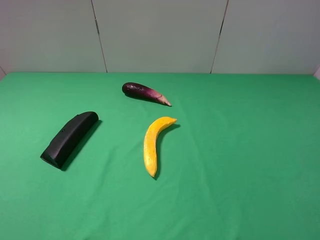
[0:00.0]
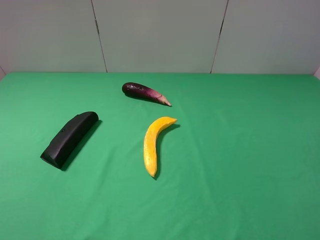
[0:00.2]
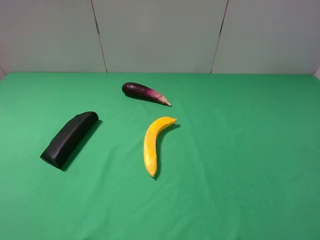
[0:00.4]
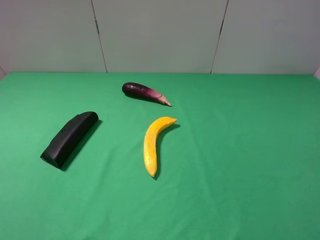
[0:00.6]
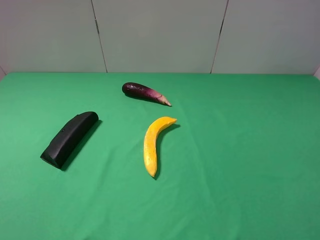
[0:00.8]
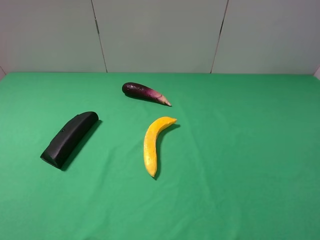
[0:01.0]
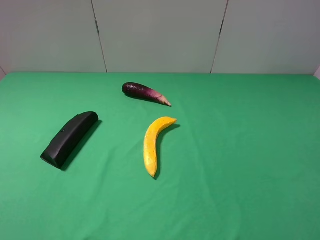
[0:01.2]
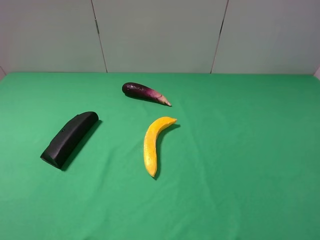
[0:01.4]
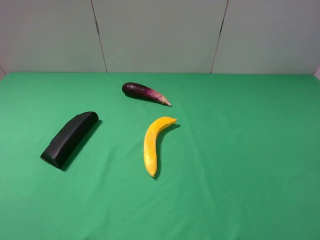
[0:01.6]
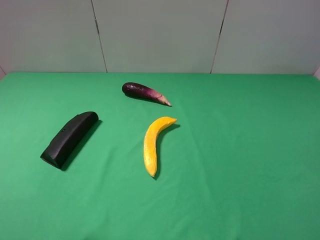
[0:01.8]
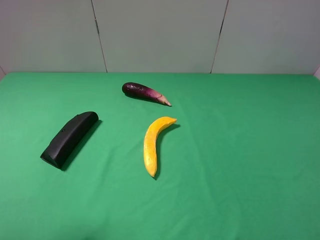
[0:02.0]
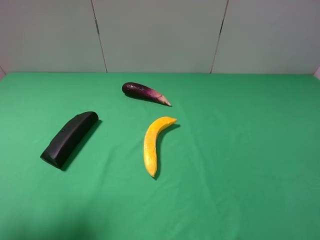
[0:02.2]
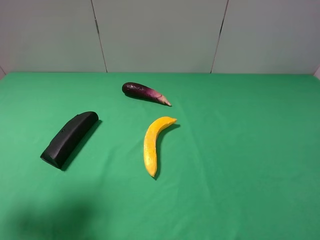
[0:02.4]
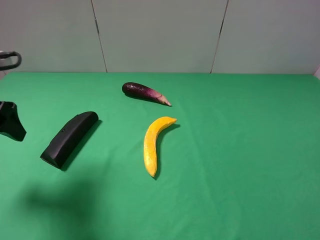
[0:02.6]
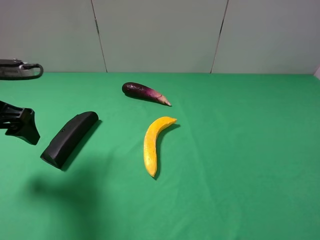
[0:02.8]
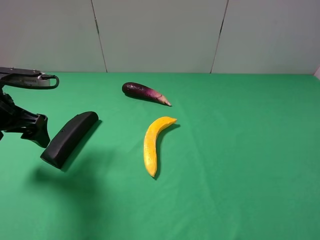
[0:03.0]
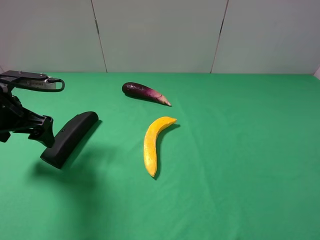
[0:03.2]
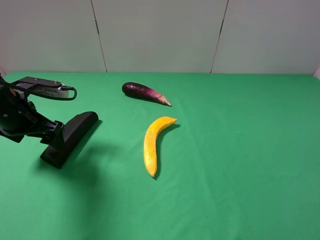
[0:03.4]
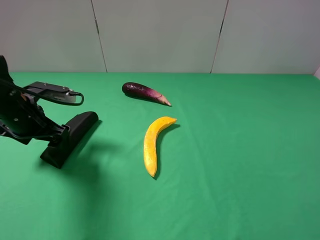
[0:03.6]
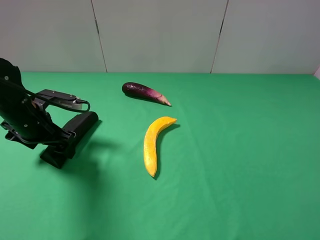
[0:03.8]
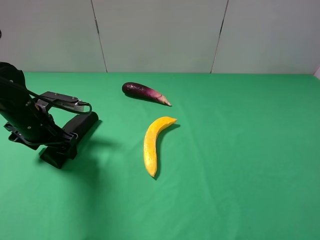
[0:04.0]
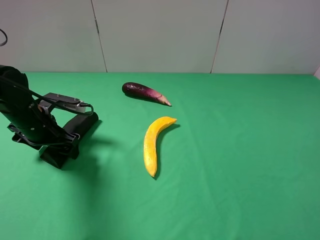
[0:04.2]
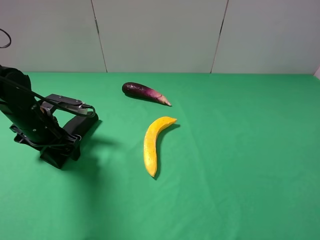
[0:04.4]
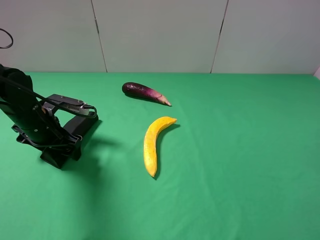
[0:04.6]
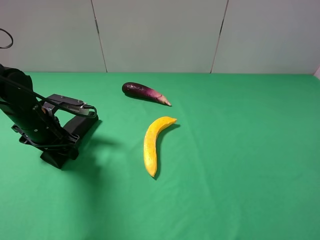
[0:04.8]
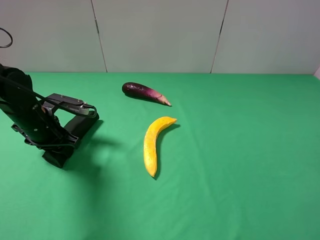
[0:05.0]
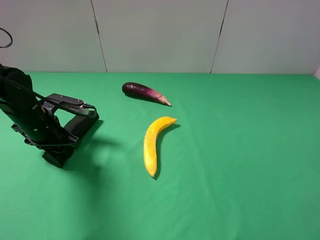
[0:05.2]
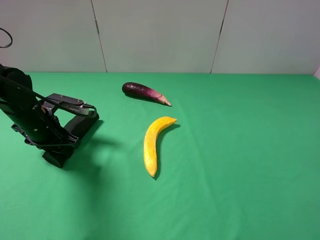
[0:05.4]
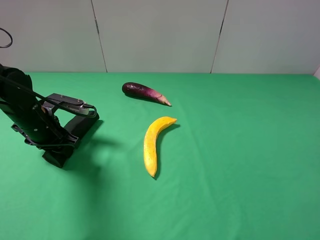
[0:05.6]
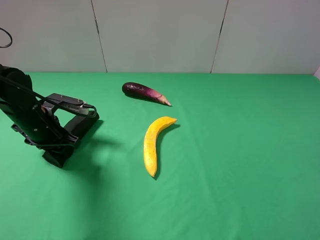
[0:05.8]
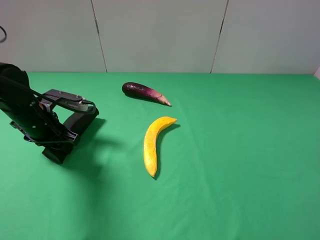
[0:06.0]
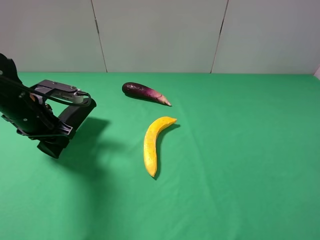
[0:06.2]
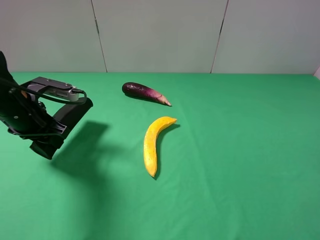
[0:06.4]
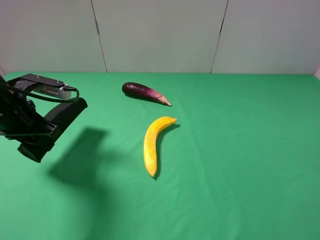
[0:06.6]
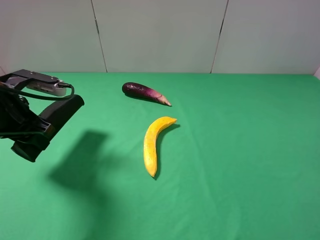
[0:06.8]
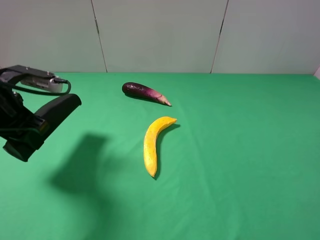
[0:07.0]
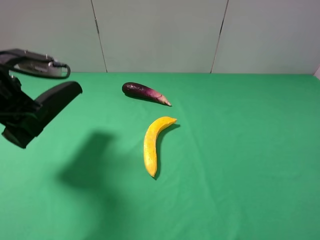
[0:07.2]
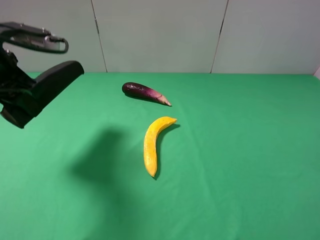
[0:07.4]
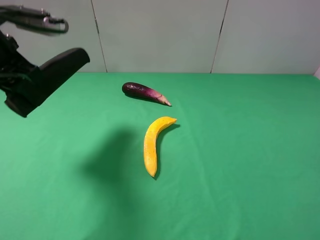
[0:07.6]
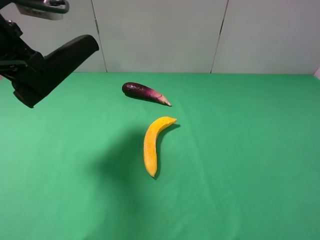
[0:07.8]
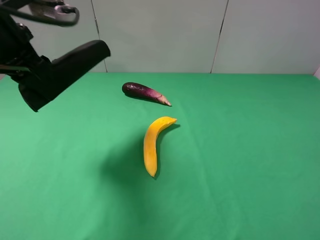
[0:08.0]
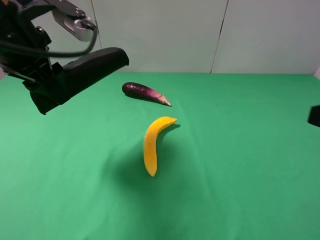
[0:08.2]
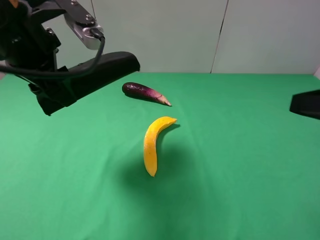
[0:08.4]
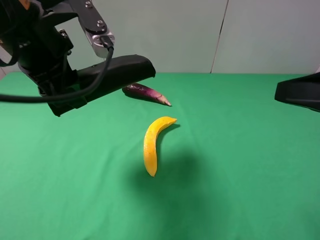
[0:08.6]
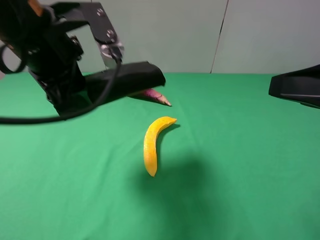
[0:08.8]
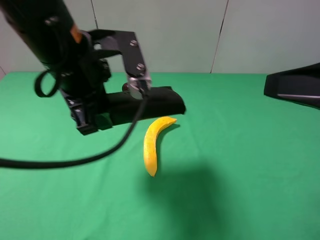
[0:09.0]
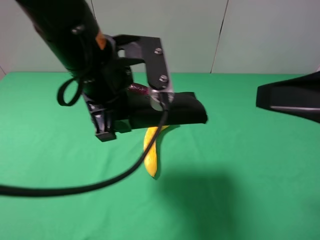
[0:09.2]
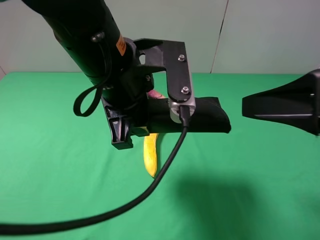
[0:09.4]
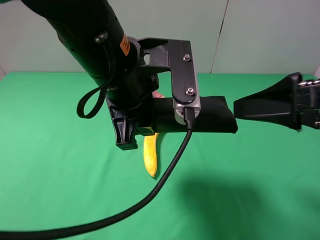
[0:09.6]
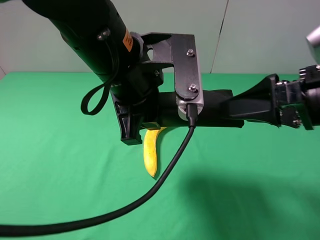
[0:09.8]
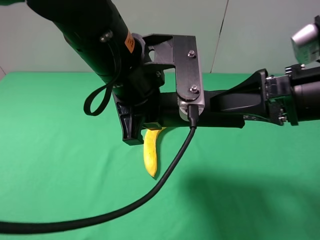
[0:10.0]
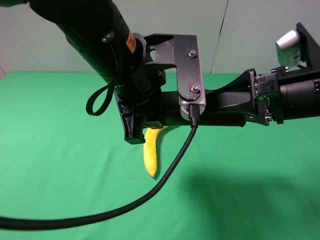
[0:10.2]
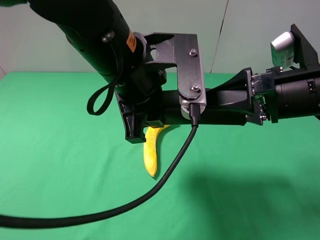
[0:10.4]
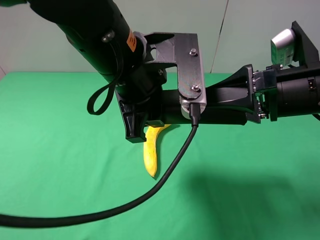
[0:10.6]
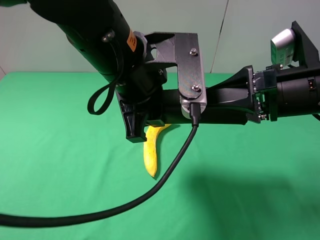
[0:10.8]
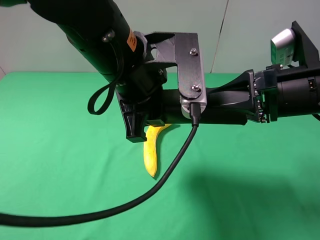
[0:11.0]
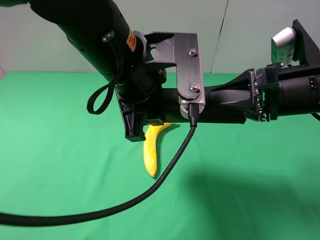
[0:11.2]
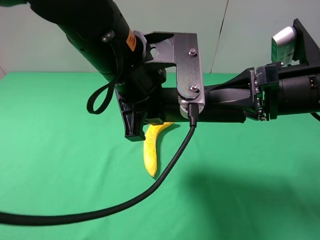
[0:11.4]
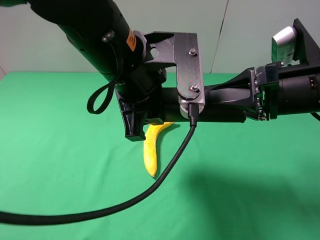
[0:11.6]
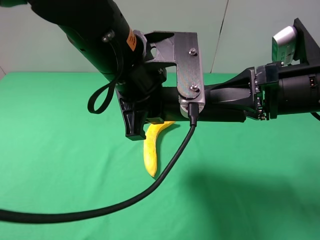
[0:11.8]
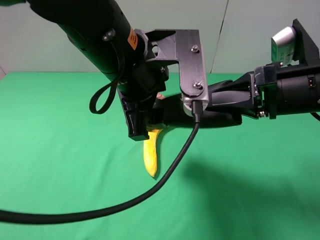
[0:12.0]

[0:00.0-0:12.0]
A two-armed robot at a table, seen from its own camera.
Task of the whole recording: use the left gripper to pick up the item and transfer it from the left gripper to the right gripper.
Step, 0:00.0 to 0:05.2: Use the left gripper to grab the eyeglass case on the left side of the table.
0:01.6 to 0:03.0: The left gripper shifts some 25 cm forward and downward.
0:03.0 to 0:04.4: The left gripper heads downward, covering roughly 10 cm.
0:04.4 to 0:06.0: The left gripper closes its fingers.
0:06.0 to 0:07.6: The left gripper heads upward, covering about 15 cm.
0:07.6 to 0:09.0: The left gripper goes some 15 cm to the right; the right gripper heads forward and to the left, covering about 10 cm.
0:09.0 to 0:10.4: The left gripper travels to the right by about 5 cm, while the right gripper moves forward and downward, roughly 10 cm.
0:10.4 to 0:12.0: The left gripper opens its fingers. Meanwhile the right gripper closes.

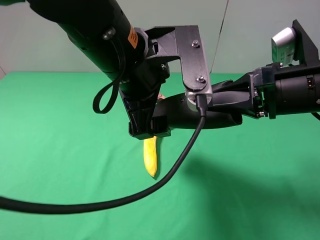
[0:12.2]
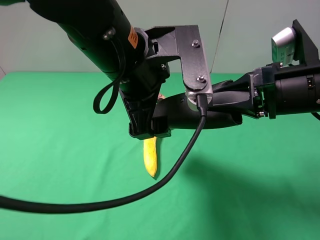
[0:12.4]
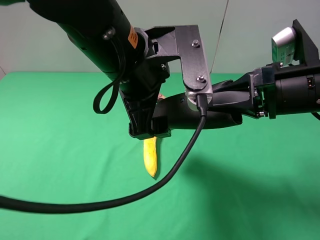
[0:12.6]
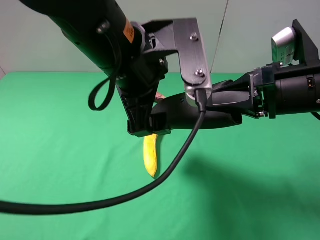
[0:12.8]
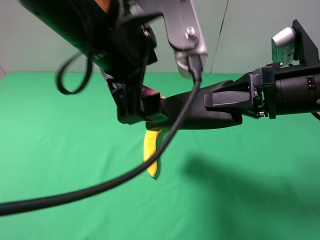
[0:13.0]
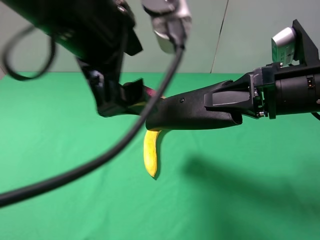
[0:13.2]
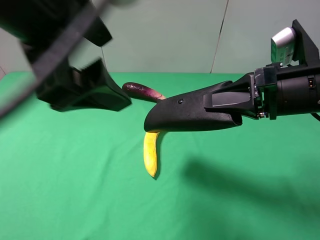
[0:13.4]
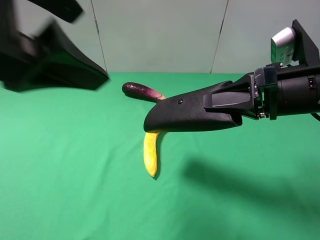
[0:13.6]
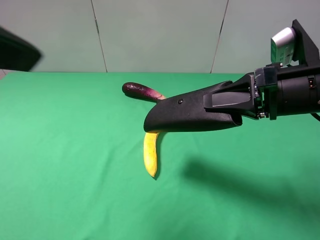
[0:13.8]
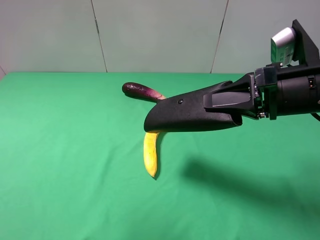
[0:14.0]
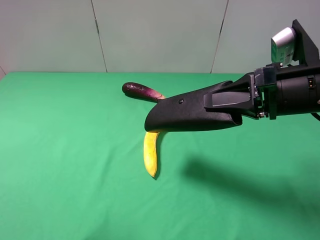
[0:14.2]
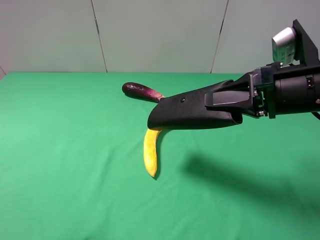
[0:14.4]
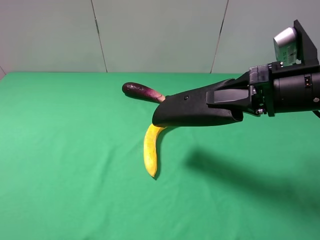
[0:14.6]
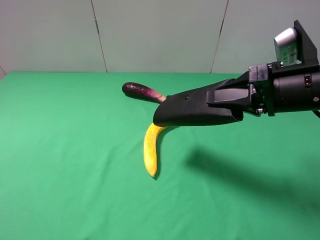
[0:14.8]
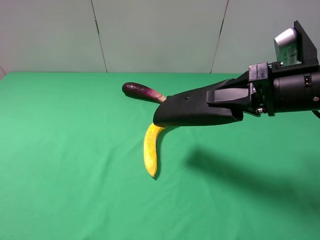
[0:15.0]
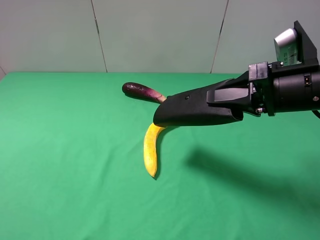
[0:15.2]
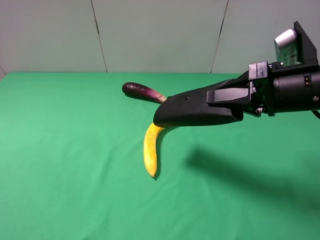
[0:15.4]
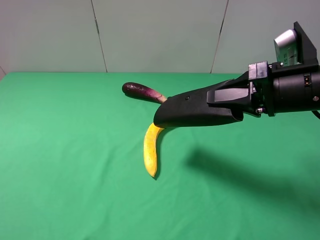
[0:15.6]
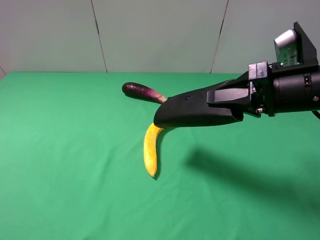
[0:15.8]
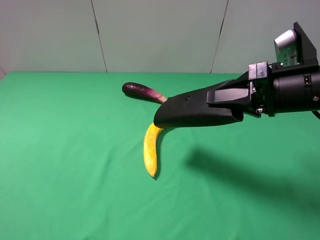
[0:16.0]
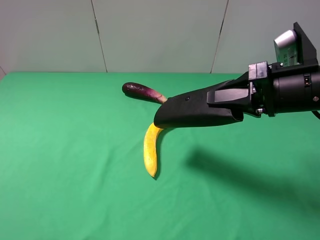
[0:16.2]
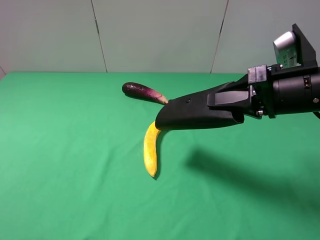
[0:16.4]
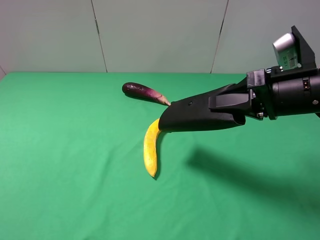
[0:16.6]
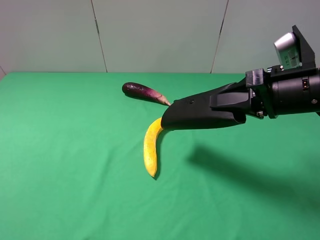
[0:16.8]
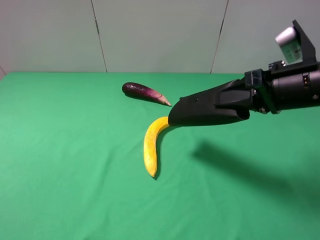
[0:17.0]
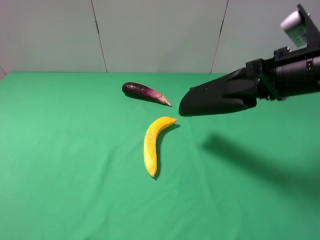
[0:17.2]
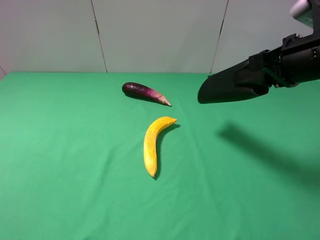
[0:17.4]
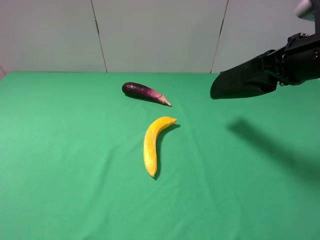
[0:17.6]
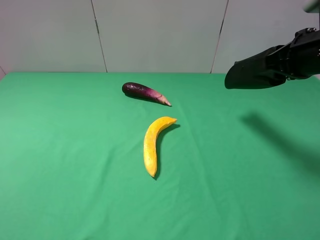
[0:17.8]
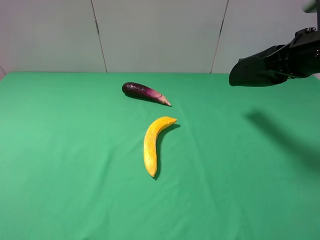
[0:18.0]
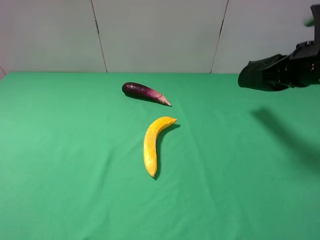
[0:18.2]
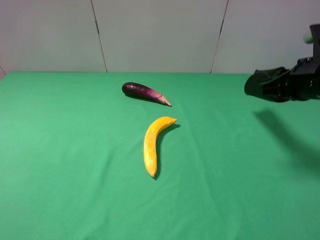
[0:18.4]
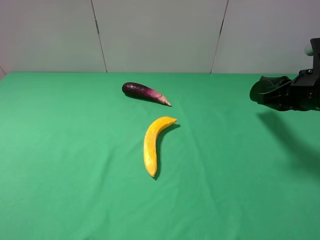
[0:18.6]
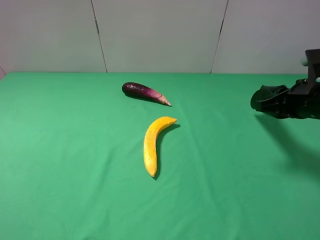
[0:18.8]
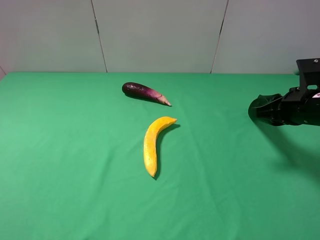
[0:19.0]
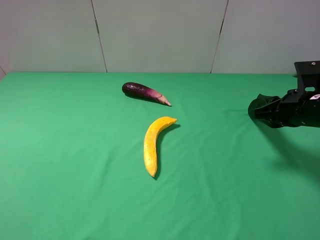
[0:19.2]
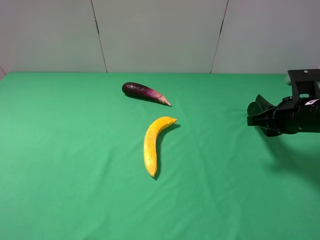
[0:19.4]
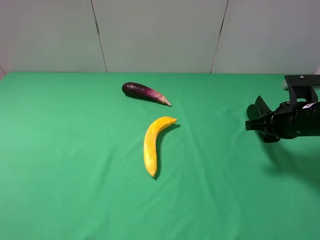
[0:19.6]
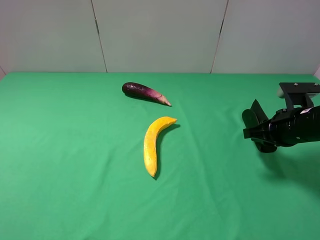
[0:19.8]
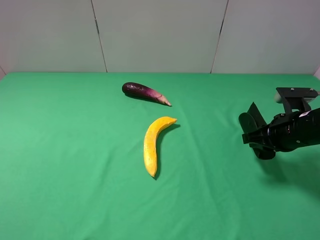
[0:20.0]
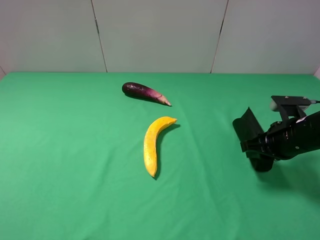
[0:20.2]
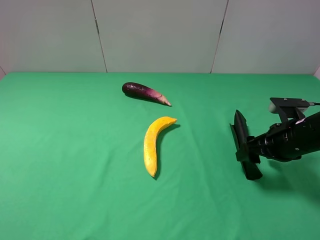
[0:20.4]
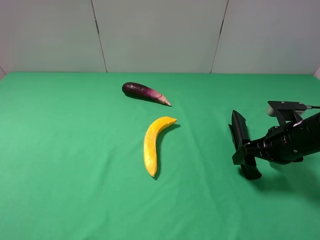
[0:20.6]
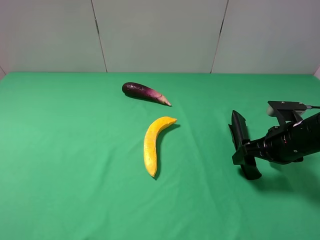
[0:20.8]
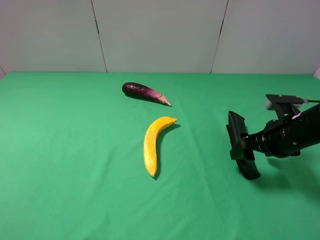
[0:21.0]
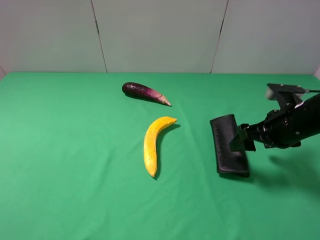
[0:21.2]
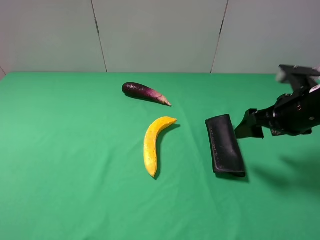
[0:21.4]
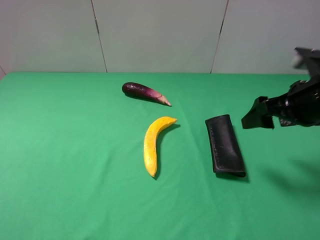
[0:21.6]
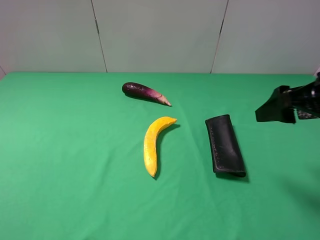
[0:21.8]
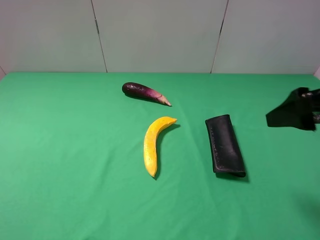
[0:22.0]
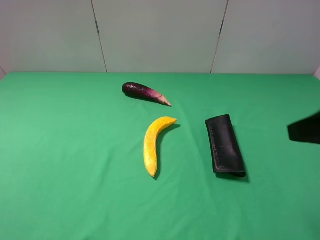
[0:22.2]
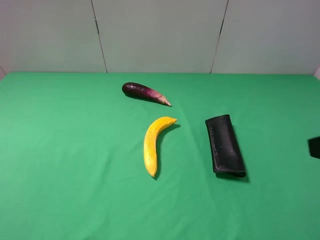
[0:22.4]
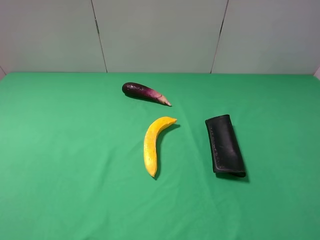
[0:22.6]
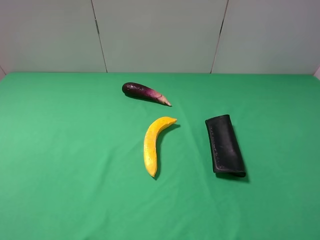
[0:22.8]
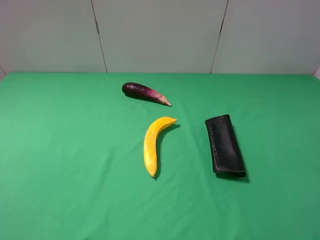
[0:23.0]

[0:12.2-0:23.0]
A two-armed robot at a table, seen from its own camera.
Task of the whole recording: use the left gripper to pick up the item and transfer it from the left gripper to the right gripper.
Step, 0:12.4 to 0:21.2: The right gripper places eyeglass case on the right side of the table.
0:12.2 to 0:13.8: The left gripper is displaced to the left, upward and backward by roughly 25 cm.
0:13.8 to 0:15.2: The left gripper is displaced downward, to the left and backward by approximately 20 cm.
0:16.8 to 0:18.4: The right gripper shifts approximately 5 cm to the right.
0:18.4 to 0:20.0: The right gripper shifts some 10 cm downward.
0:20.0 to 0:21.4: The right gripper travels upward by approximately 5 cm, and opens its fingers.
0:21.4 to 0:23.0: The right gripper goes about 25 cm backward.
